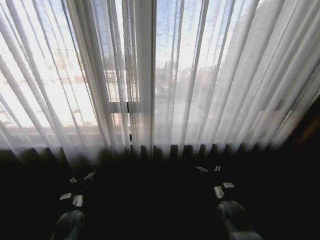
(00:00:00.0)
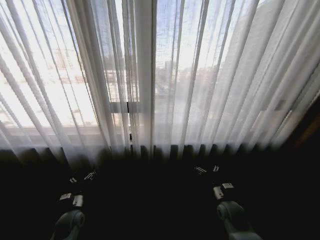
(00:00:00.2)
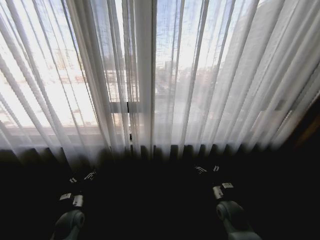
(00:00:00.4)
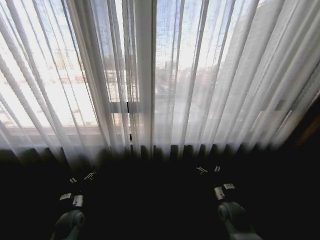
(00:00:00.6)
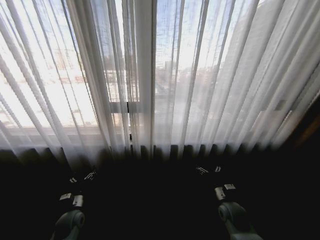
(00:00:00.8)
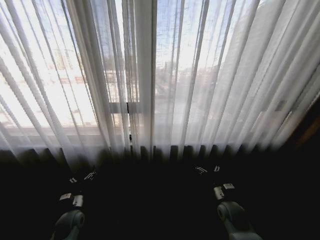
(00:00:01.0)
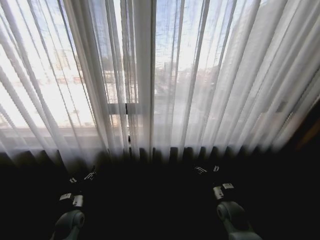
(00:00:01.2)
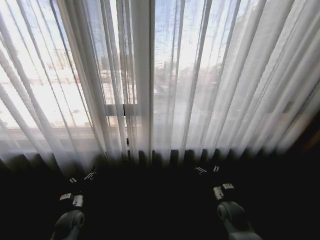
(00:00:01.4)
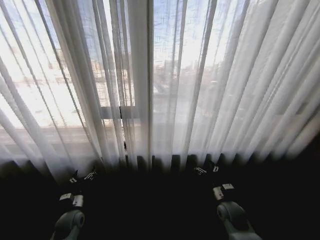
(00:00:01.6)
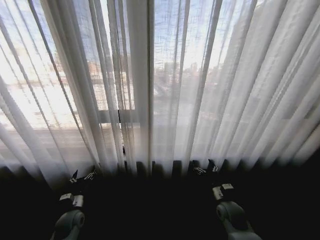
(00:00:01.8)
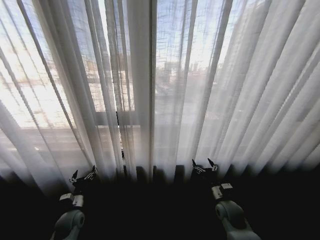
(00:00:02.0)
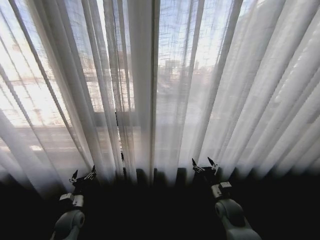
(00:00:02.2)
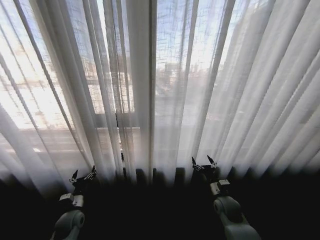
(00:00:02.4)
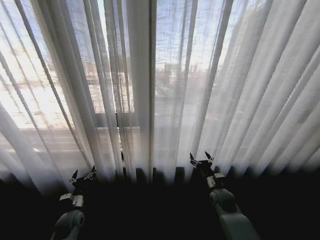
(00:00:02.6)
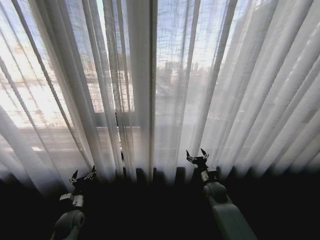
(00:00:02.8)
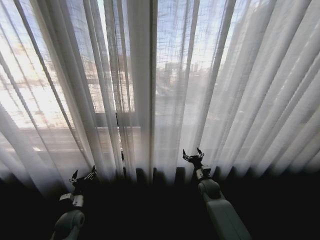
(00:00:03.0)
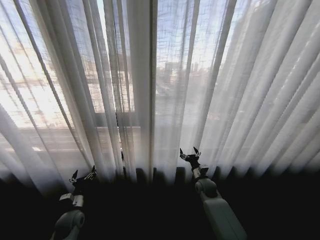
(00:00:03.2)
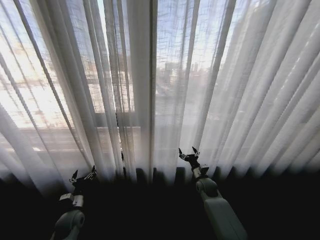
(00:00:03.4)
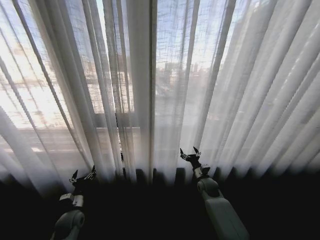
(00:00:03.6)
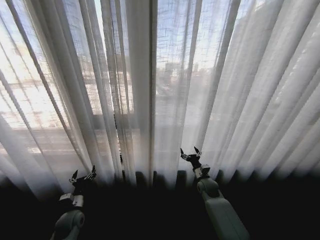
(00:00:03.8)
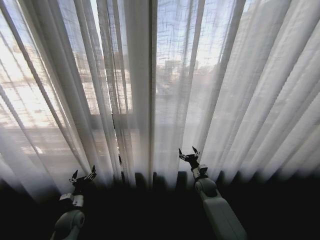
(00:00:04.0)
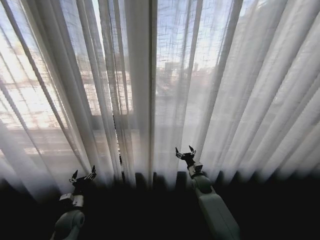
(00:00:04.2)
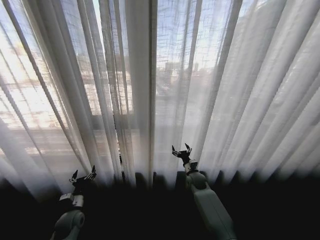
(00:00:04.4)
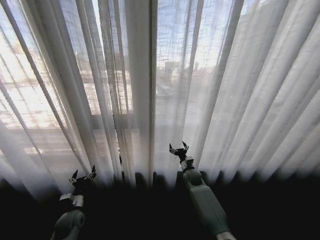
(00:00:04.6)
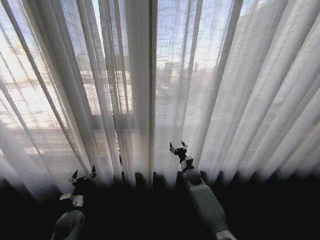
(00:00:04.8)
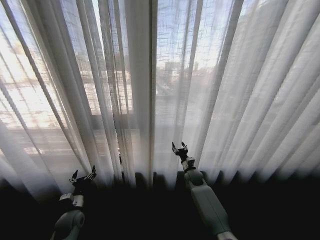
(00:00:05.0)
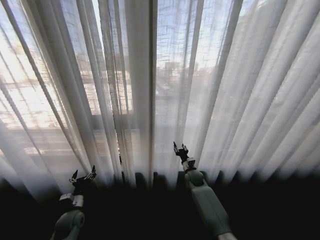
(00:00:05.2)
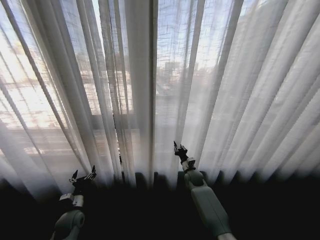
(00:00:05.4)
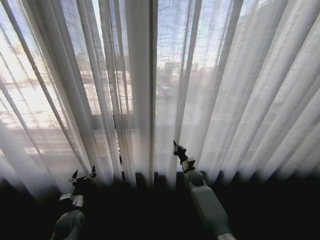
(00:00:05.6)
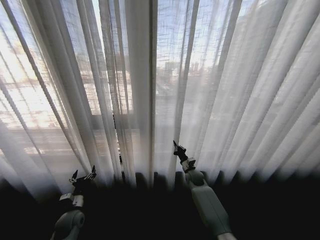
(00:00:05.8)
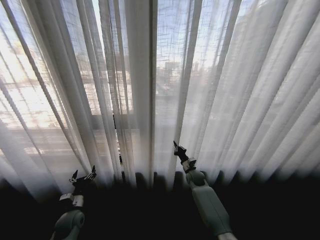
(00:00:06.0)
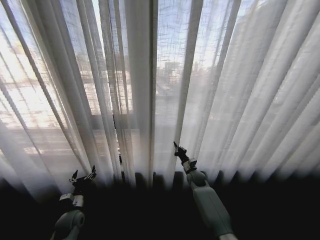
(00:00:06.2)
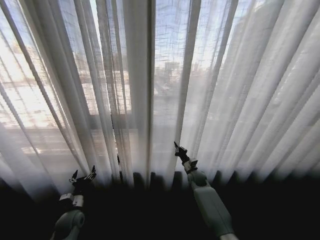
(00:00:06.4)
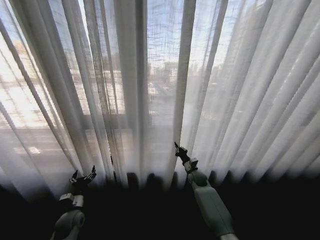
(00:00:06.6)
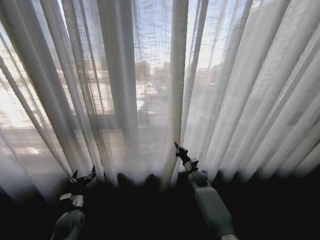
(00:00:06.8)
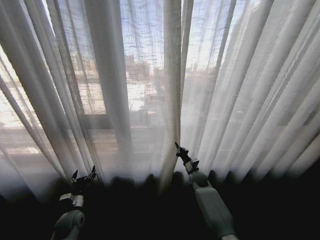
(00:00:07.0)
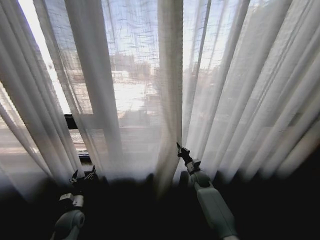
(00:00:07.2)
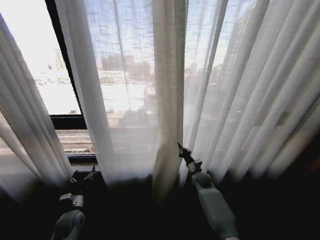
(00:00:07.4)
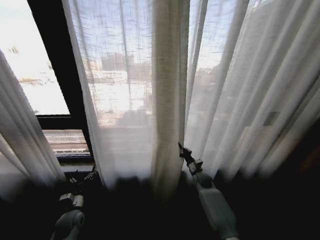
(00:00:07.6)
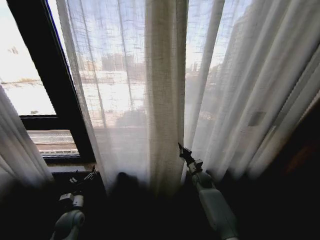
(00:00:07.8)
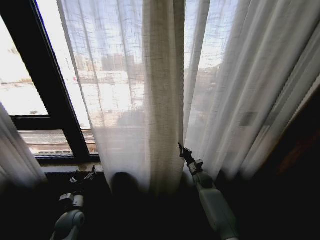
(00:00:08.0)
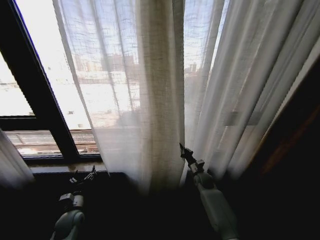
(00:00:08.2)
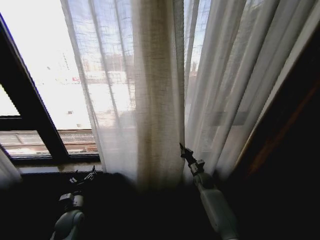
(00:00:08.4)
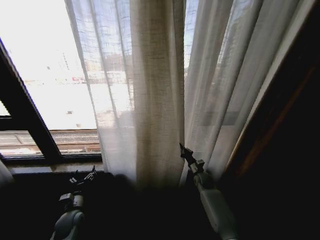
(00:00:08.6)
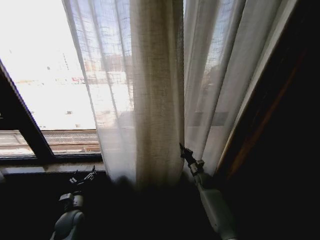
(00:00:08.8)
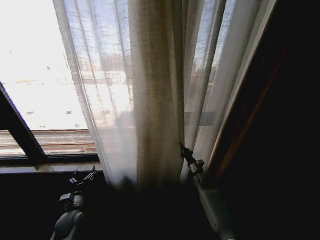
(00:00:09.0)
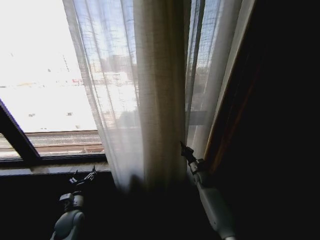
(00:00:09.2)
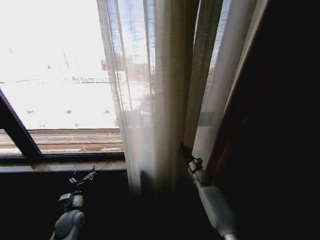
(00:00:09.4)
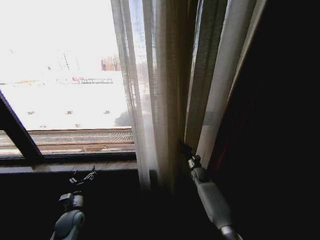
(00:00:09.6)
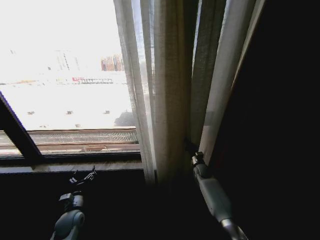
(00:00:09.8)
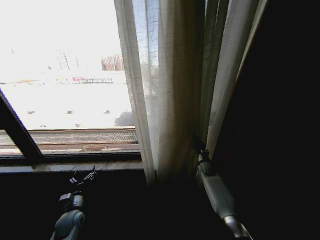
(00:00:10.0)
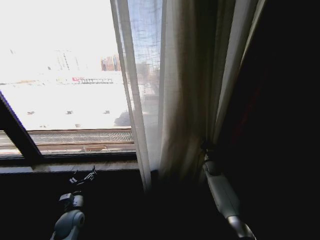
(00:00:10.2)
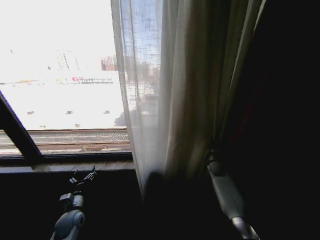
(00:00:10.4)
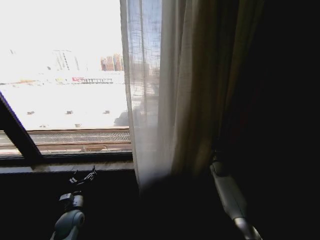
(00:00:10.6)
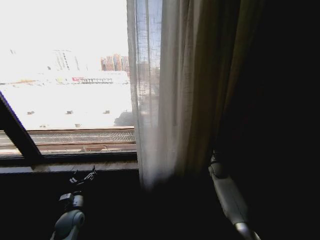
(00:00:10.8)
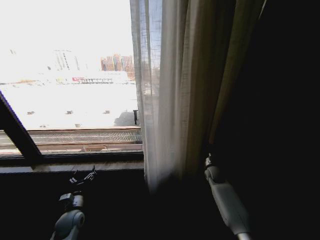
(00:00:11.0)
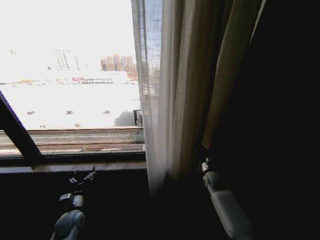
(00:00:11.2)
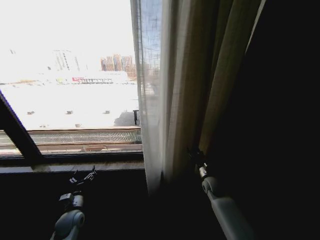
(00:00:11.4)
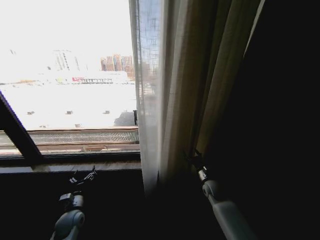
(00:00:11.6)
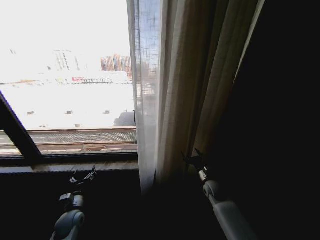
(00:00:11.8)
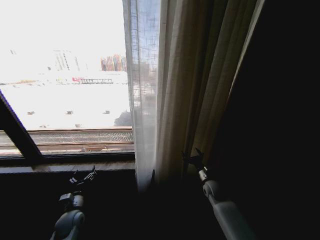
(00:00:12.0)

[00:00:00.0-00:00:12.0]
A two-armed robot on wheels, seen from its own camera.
Task of the whole recording: Open the curtains by pulling them apart, changing their state from closed to fully open.
00:00:01.6 to 00:00:03.0: The right gripper shifts about 10 cm forward.
00:00:03.0 to 00:00:04.4: The right gripper moves about 5 cm.
00:00:04.4 to 00:00:06.0: The right gripper closes up.
00:00:09.0 to 00:00:10.4: The right gripper heads to the right, covering approximately 10 cm.
00:00:10.4 to 00:00:12.0: The right gripper heads backward and to the left, covering roughly 15 cm, and opens up.

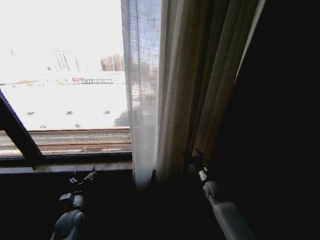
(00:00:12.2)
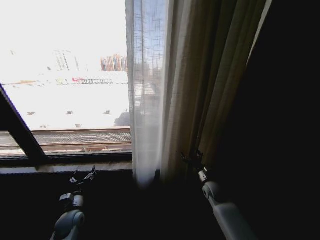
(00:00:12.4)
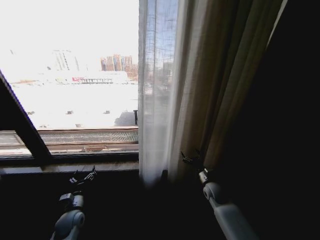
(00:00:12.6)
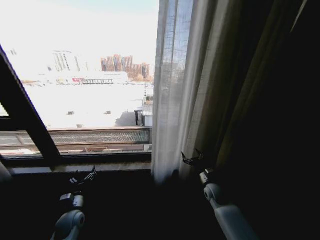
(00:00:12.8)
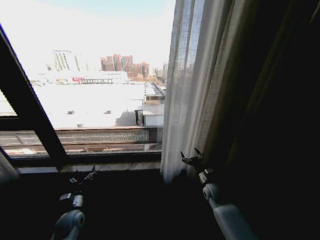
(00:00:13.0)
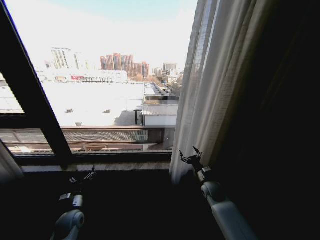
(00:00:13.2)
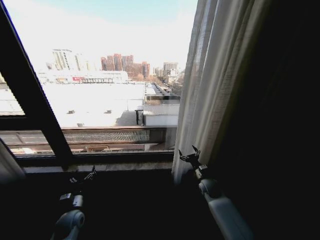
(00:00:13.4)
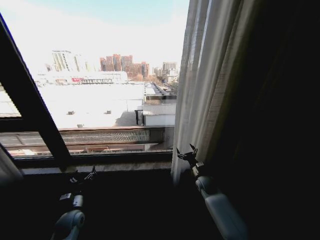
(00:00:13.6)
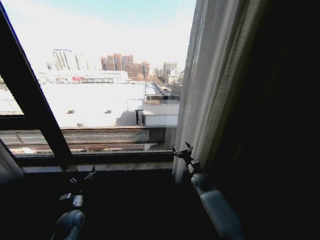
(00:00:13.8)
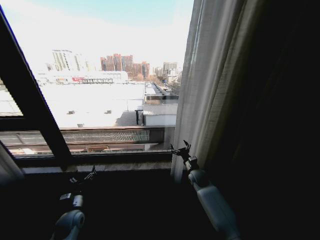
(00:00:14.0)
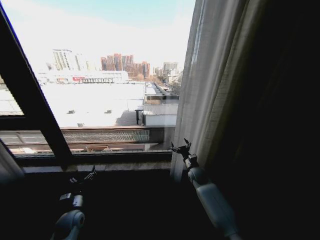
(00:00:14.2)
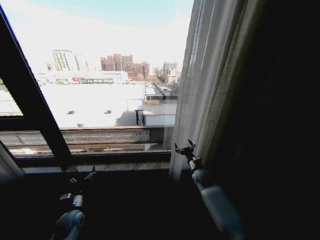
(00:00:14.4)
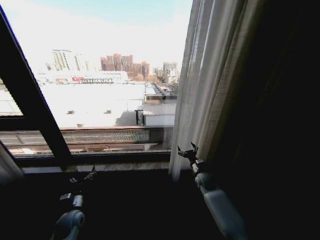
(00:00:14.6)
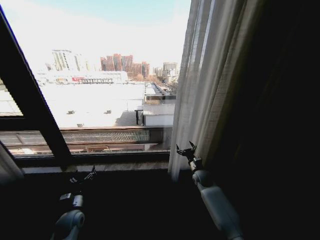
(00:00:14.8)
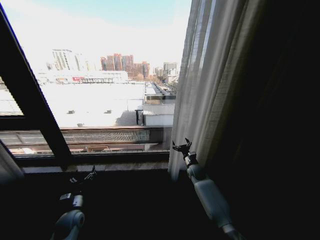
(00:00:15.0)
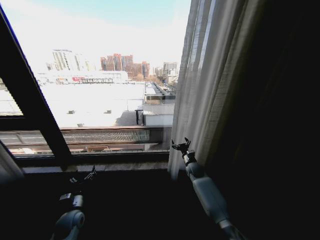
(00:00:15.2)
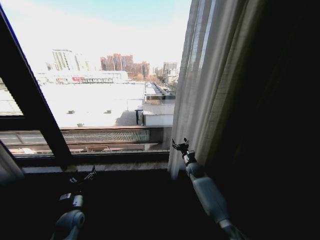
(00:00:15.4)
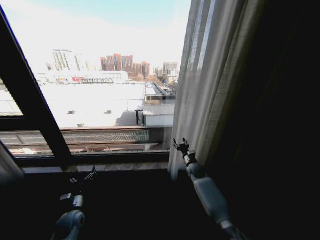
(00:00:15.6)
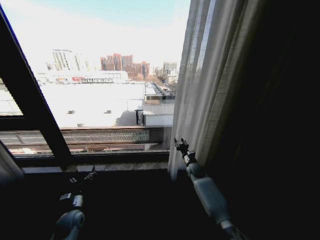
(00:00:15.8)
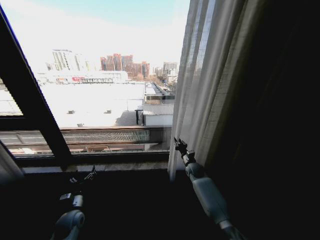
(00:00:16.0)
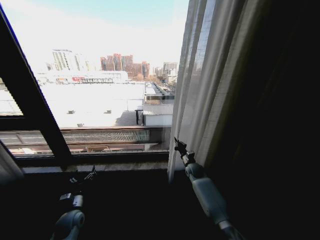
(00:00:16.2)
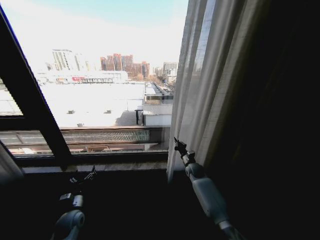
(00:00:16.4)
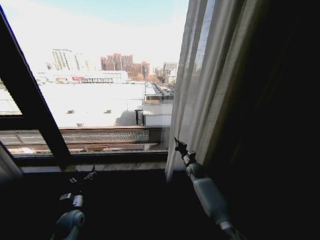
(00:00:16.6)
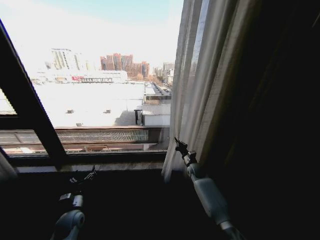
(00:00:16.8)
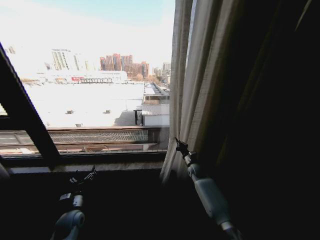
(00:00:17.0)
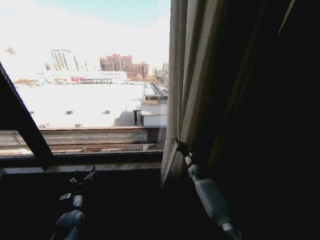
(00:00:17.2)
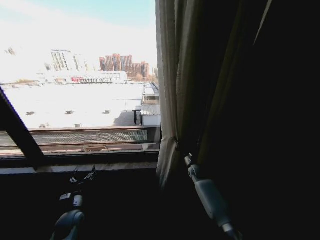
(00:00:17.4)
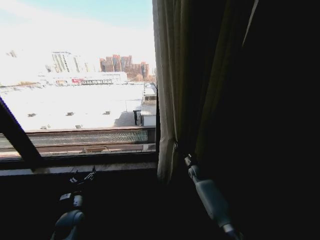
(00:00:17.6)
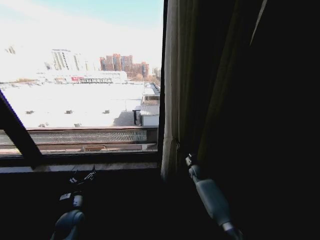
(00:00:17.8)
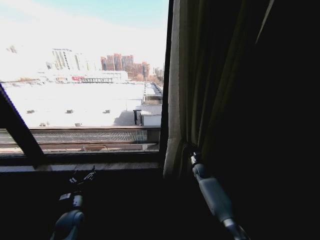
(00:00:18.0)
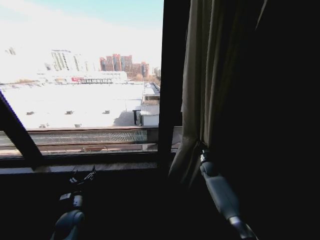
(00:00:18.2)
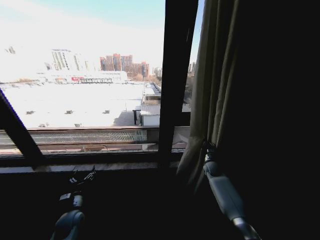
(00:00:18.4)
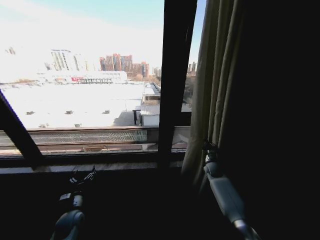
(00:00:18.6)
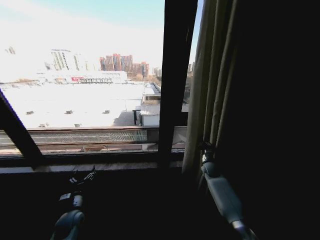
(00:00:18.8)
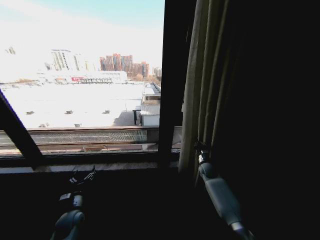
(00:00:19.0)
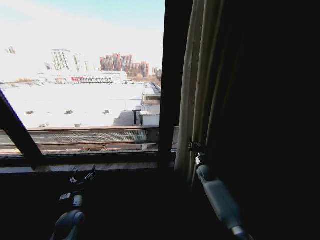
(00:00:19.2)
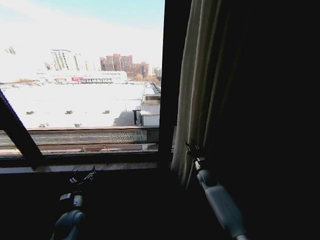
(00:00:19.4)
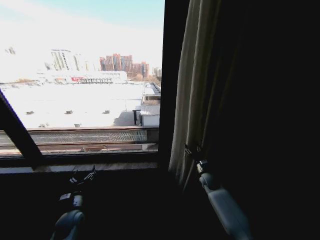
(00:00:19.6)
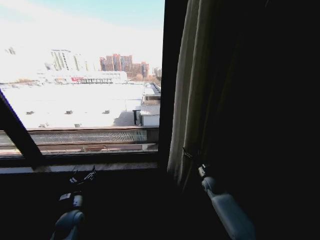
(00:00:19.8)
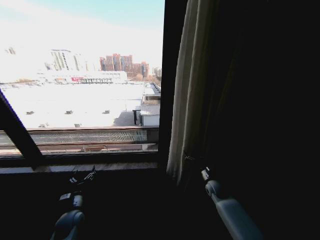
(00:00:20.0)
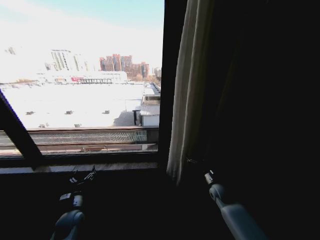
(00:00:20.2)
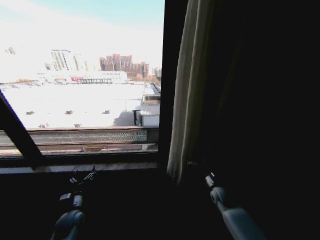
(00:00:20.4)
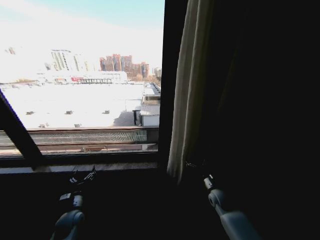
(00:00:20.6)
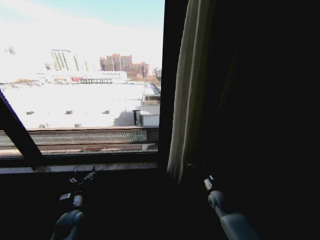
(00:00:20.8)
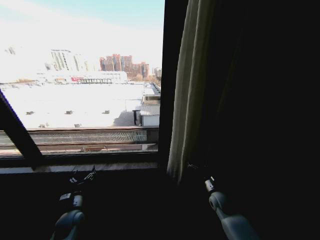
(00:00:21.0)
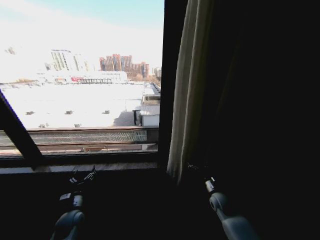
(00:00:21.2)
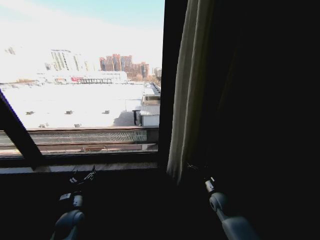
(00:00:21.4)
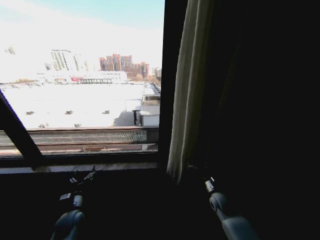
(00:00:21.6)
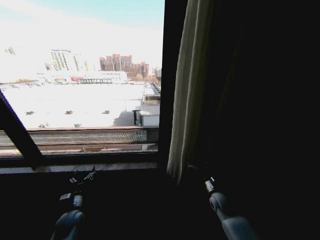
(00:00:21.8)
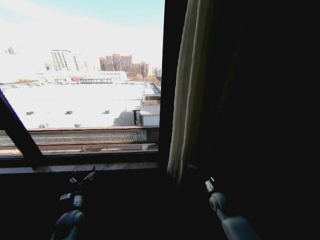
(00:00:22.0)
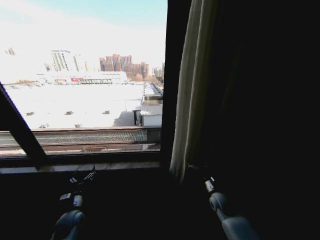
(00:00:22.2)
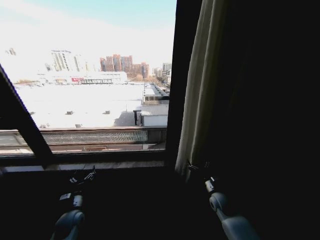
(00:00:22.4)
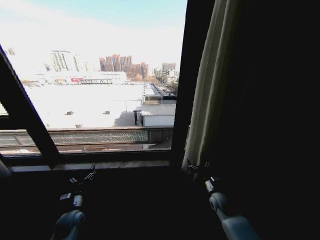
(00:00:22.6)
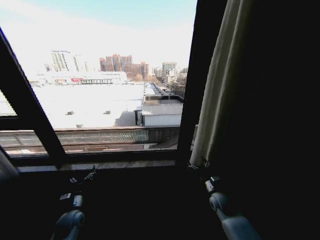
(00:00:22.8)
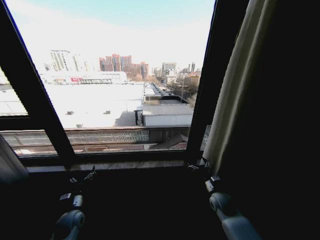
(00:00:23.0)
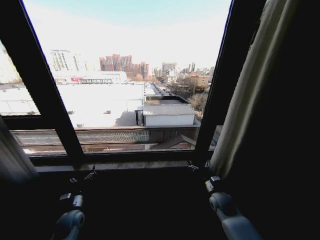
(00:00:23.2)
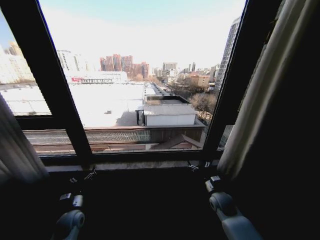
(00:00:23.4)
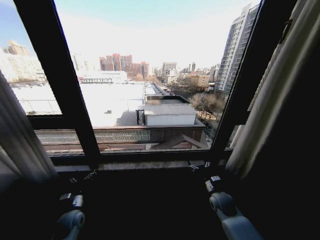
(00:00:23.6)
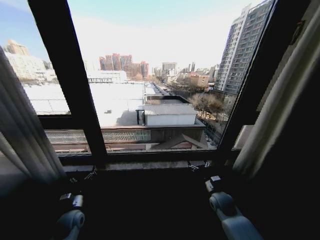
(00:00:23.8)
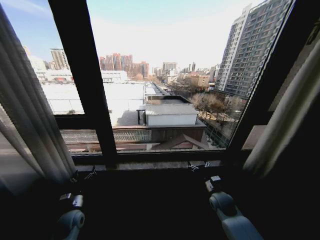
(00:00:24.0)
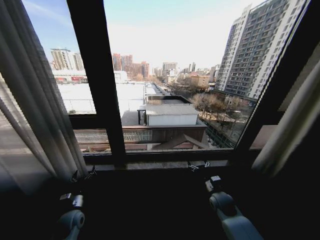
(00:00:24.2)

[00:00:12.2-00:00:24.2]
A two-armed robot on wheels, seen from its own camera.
Task of the whole recording: Open the curtains by pulling them apart, changing their state from closed to fully open.
00:00:12.2 to 00:00:13.8: The right gripper shifts by about 5 cm.
00:00:13.8 to 00:00:15.2: The right gripper goes some 5 cm forward.
00:00:15.2 to 00:00:16.6: The right gripper closes.
00:00:16.6 to 00:00:18.2: The right gripper travels to the right by about 10 cm.
00:00:18.2 to 00:00:19.8: The right gripper goes some 10 cm backward, and opens.
00:00:19.8 to 00:00:21.2: The right gripper travels backward by roughly 10 cm.
00:00:21.2 to 00:00:22.6: Neither gripper changes place.
